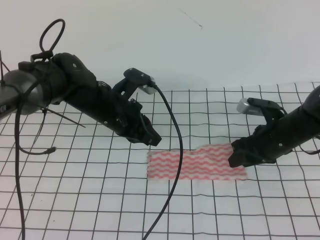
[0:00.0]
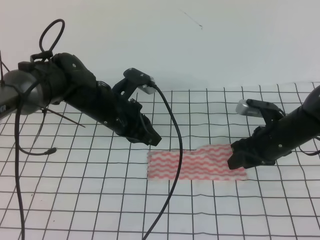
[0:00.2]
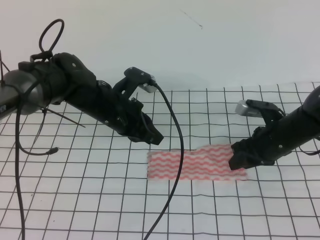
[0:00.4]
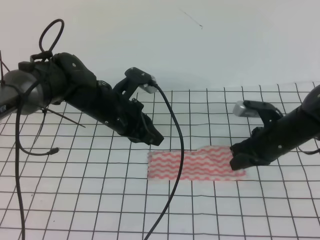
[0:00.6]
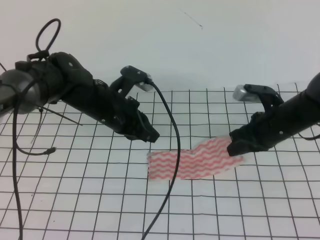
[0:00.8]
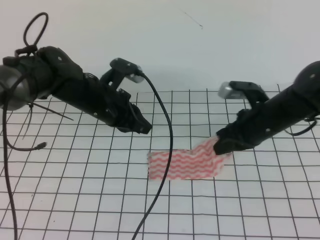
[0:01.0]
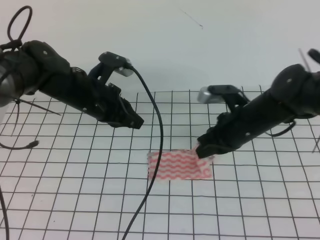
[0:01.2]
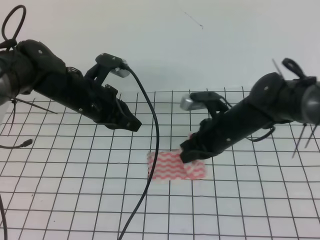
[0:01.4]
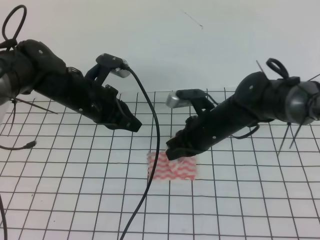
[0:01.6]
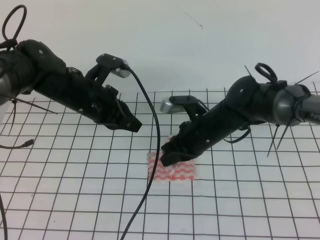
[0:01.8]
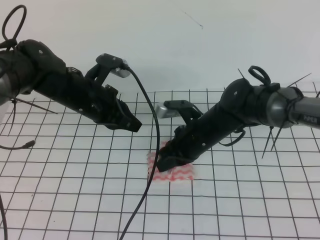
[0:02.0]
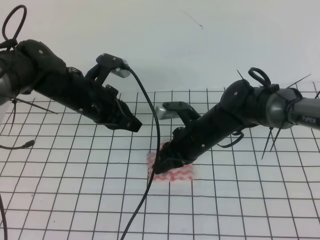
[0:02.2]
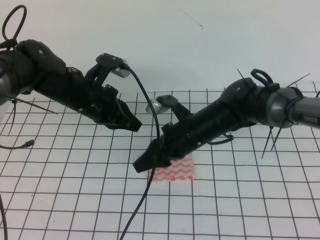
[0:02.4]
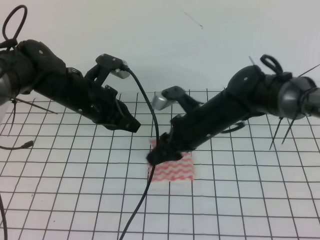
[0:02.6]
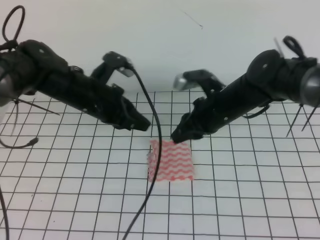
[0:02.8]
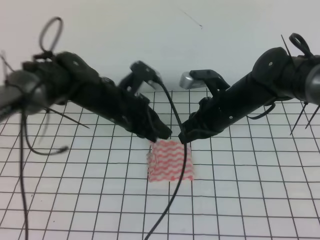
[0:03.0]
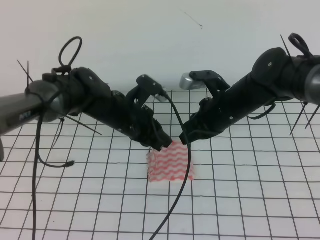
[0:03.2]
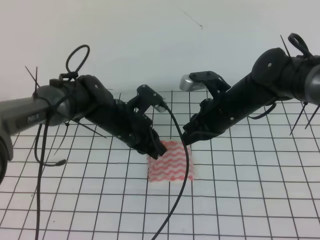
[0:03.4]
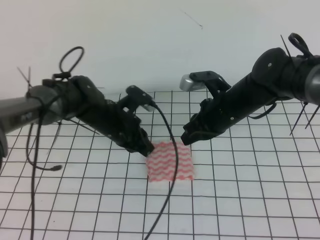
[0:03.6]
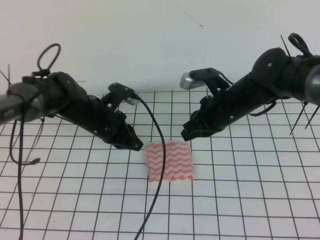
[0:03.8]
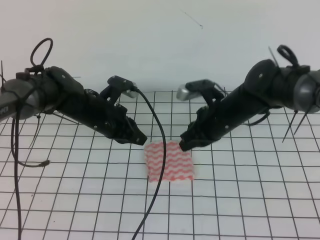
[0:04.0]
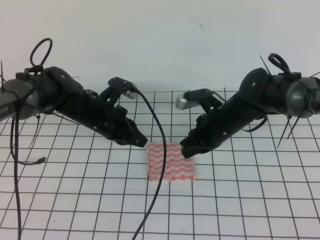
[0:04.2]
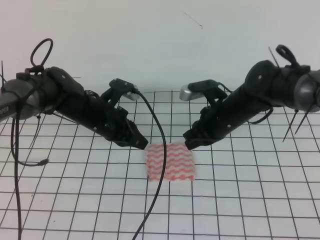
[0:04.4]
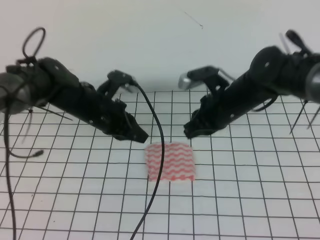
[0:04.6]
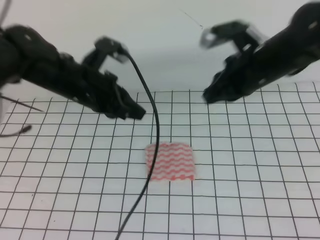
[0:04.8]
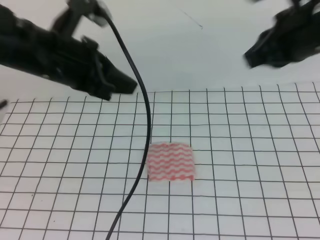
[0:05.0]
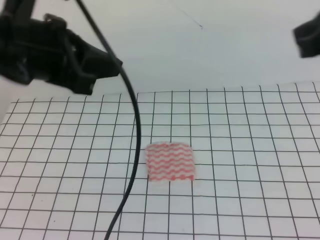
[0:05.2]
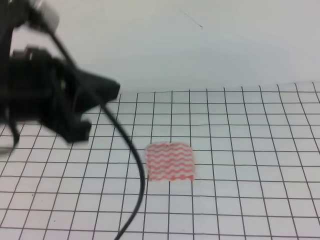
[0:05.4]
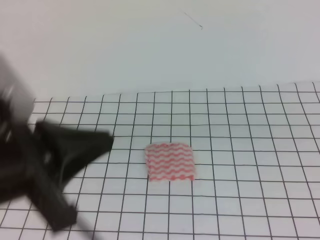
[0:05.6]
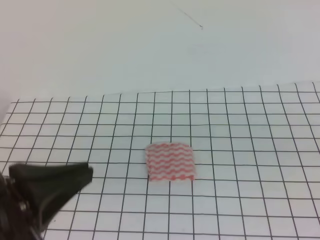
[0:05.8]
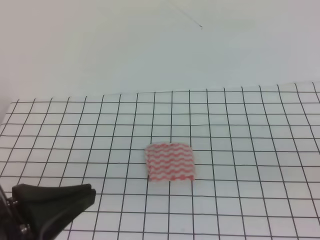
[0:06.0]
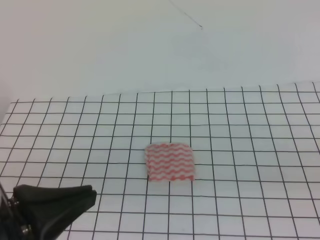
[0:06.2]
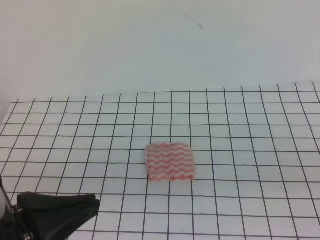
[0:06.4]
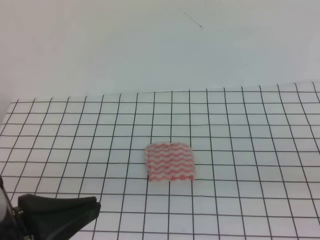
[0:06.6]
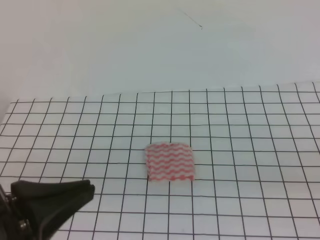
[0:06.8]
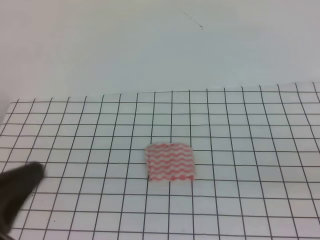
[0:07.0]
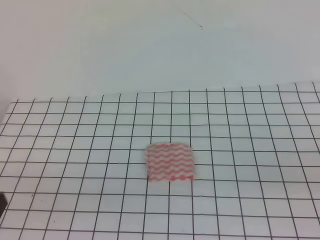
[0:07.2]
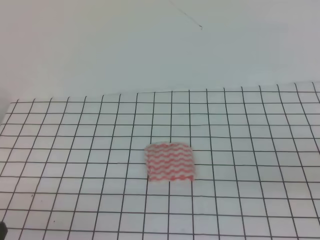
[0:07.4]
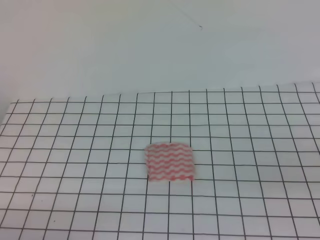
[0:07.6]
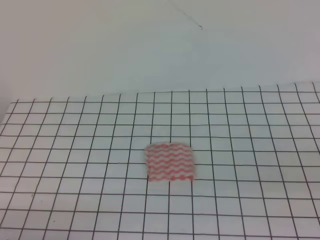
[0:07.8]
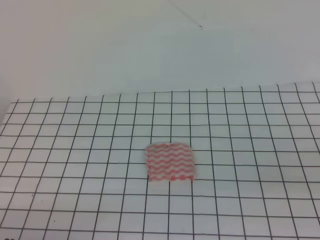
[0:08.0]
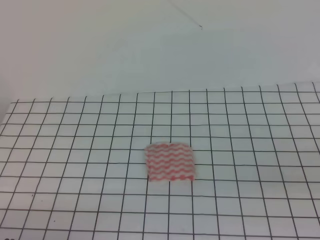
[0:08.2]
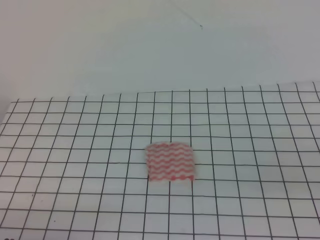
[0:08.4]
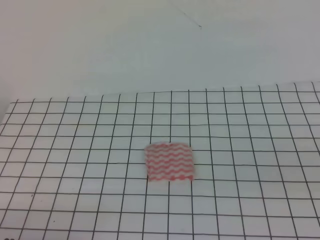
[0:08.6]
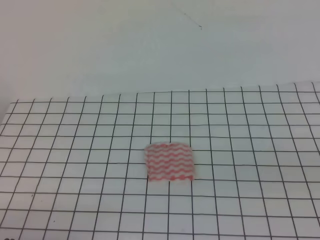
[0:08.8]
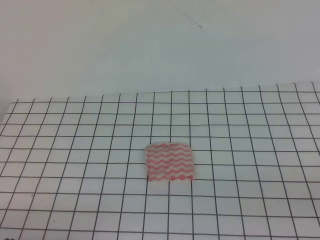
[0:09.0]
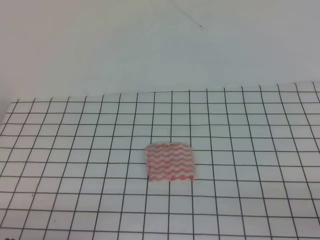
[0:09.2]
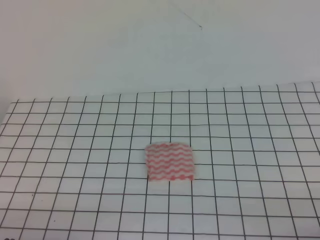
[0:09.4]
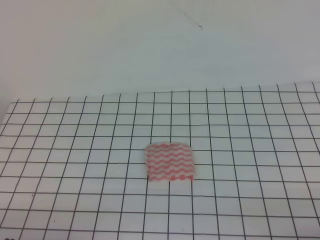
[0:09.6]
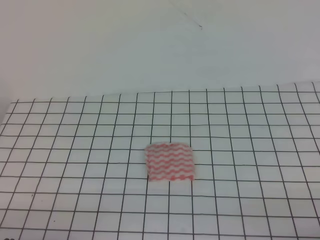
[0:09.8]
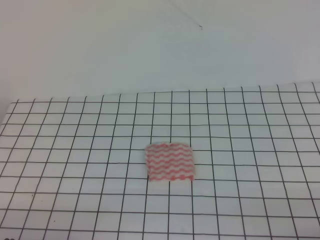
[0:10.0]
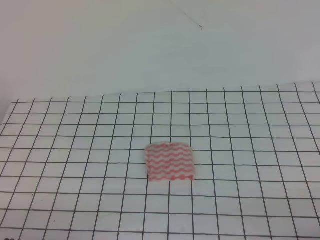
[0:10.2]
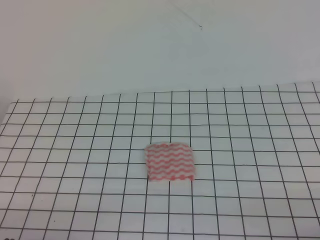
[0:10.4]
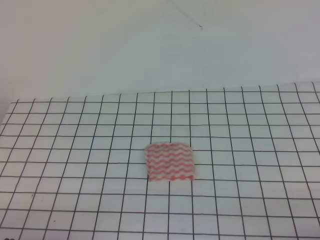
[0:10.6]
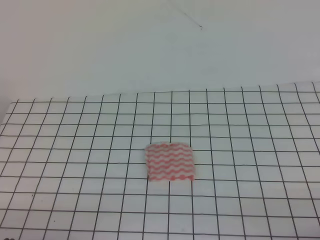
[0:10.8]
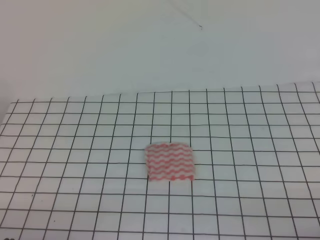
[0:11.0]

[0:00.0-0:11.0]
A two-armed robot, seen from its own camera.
Step, 0:00.0 to 0:11.0: Fold the towel.
0:00.0 to 0:01.6: The right gripper is displaced to the left by roughly 10 cm, and closes its fingers.
0:01.6 to 0:03.2: The left gripper shifts some 10 cm to the right and downward, while the right gripper opens, then closes once more.
0:03.2 to 0:04.8: The left gripper moves upward and to the left, roughly 10 cm, while the right gripper shifts approximately 10 cm upward.
0:04.8 to 0:06.2: The left gripper heads backward, covering about 25 cm, while the right gripper is displaced backward and to the right by about 30 cm.
0:06.2 to 0:07.8: The left gripper moves downward and to the left, roughly 15 cm.
